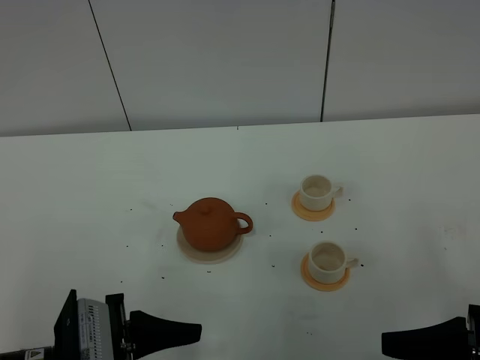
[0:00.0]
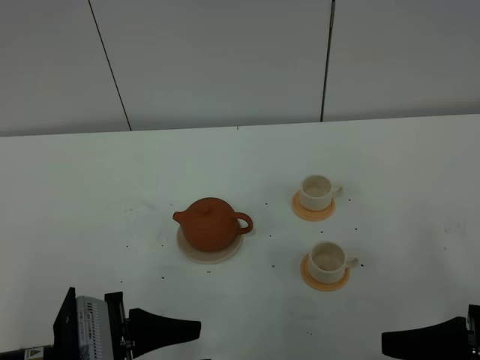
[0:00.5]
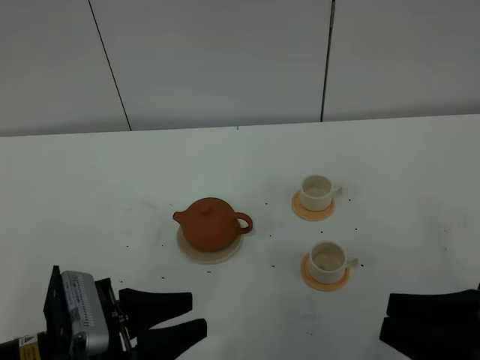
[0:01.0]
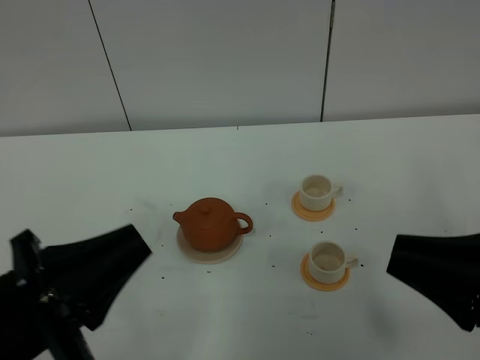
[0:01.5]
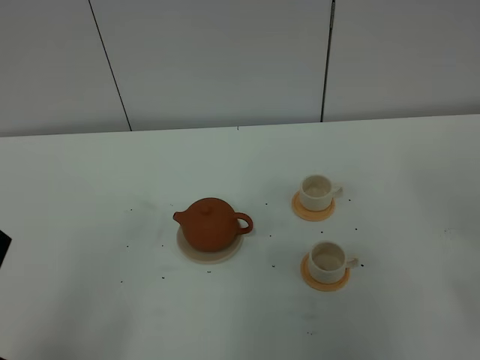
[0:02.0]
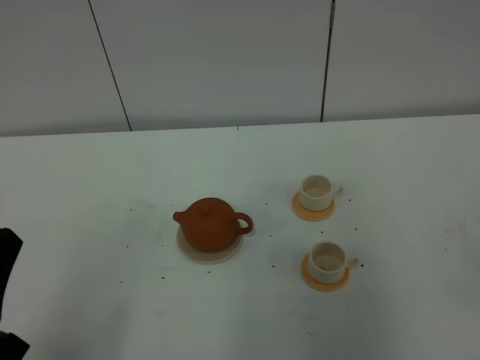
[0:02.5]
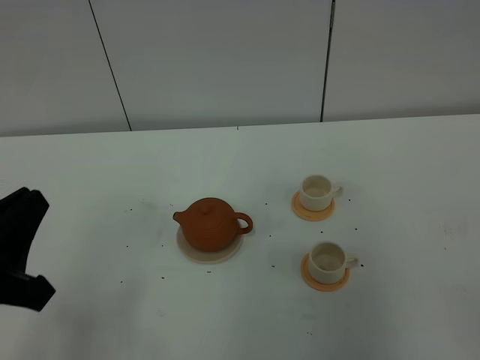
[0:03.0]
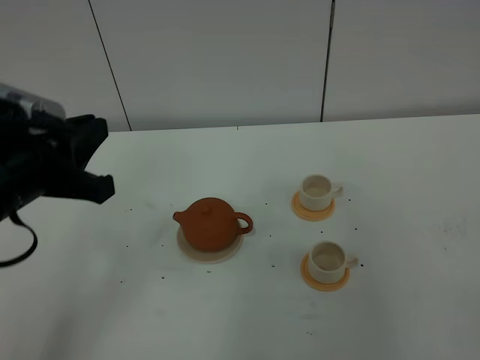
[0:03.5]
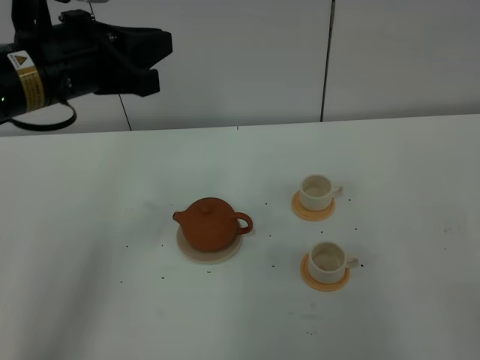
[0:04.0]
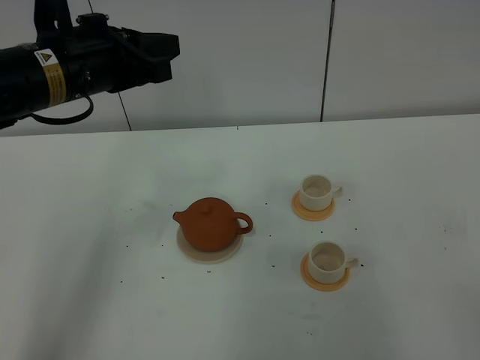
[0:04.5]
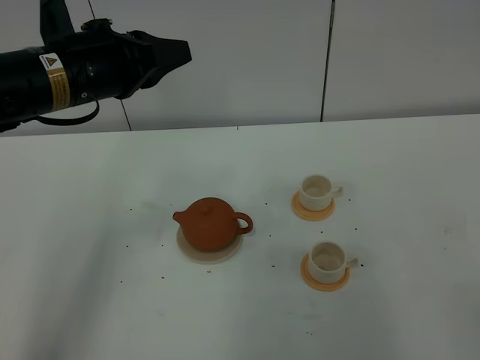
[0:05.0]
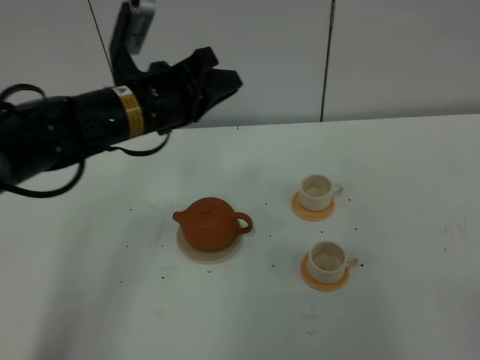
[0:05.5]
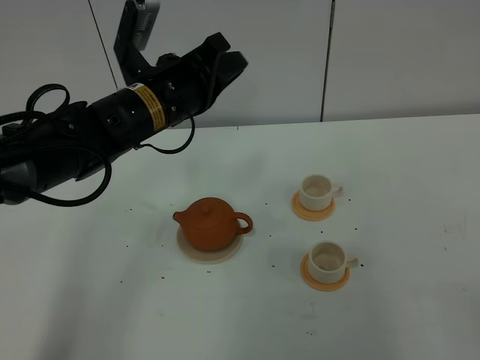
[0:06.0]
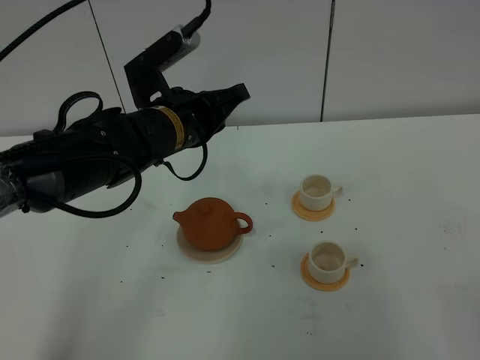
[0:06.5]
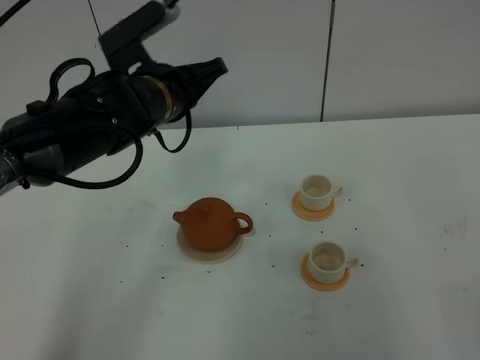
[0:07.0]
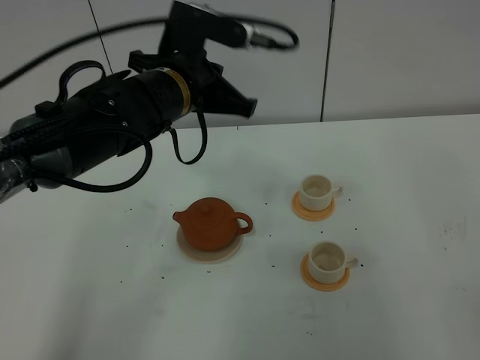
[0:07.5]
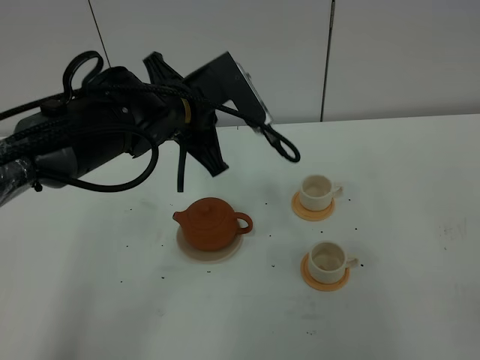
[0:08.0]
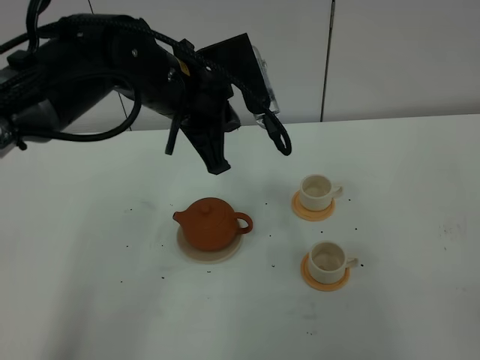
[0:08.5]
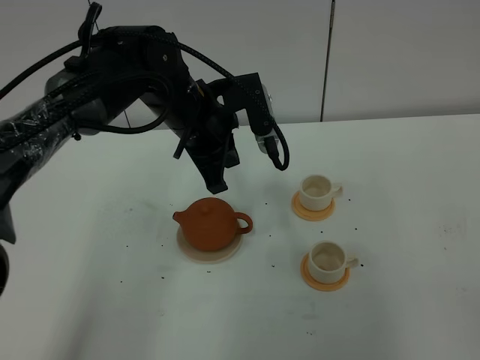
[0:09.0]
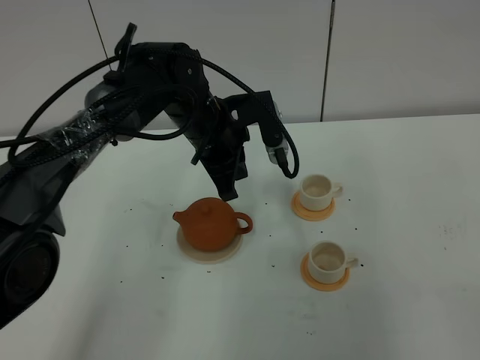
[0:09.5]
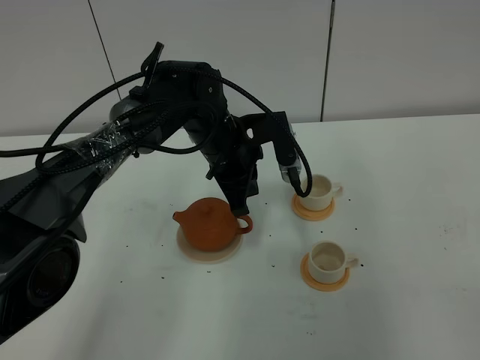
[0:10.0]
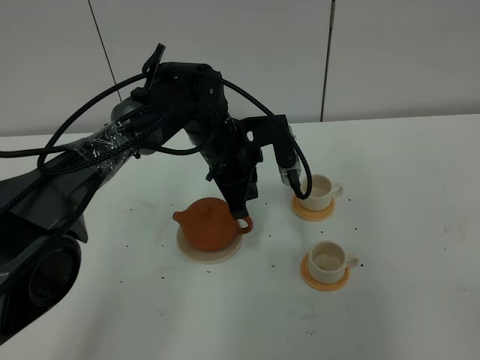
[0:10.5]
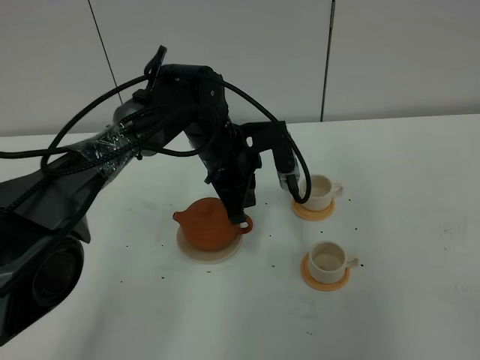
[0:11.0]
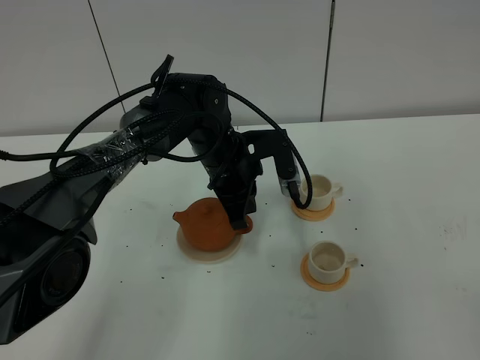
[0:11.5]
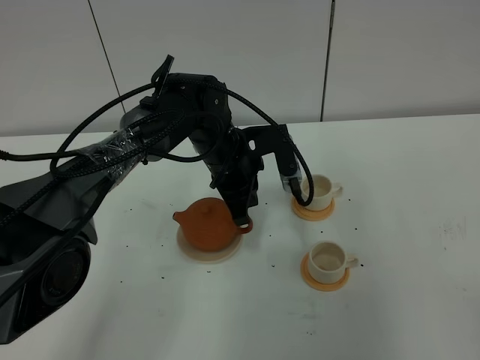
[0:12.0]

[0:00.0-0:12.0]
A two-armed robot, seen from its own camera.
Task of the whole recording: grasp the brown teapot and pour the tea into the two white teacups one by one, put the brown teapot back in its original place.
0:00.0 to 0:02.0: The right gripper travels upward by approximately 15 cm, and closes up; the left gripper moves upward, to the left and backward, about 15 cm, and closes.
0:02.0 to 0:04.0: The left gripper moves forward, roughly 25 cm.
0:04.0 to 0:06.0: The right gripper opens up. Meanwhile the left gripper is displaced downward, to the right and forward by about 10 cm.
0:06.0 to 0:08.0: The left gripper closes its fingers.
0:08.0 to 0:10.0: The left gripper heads downward and forward, covering about 10 cm.
0:10.0 to 0:12.0: The grippers stay close to where they were, moving slightly.

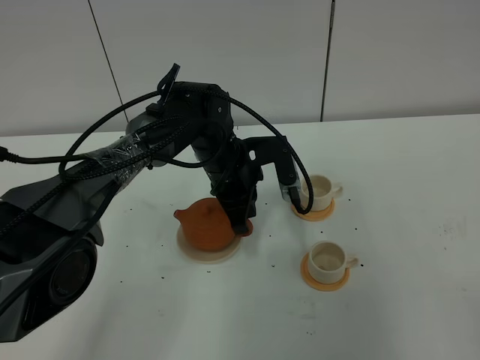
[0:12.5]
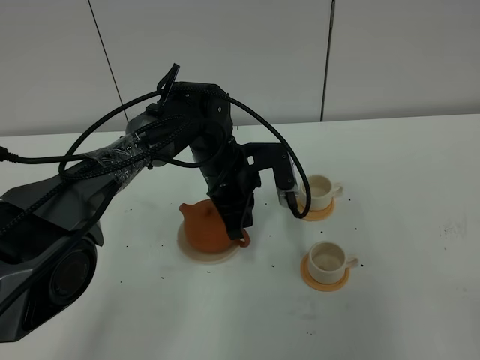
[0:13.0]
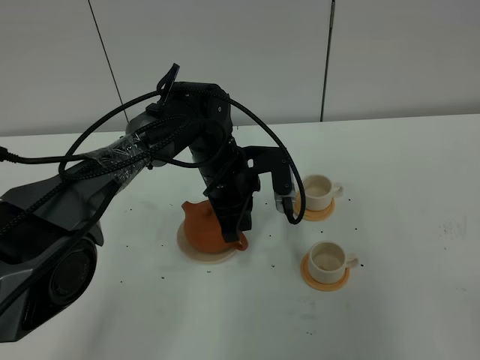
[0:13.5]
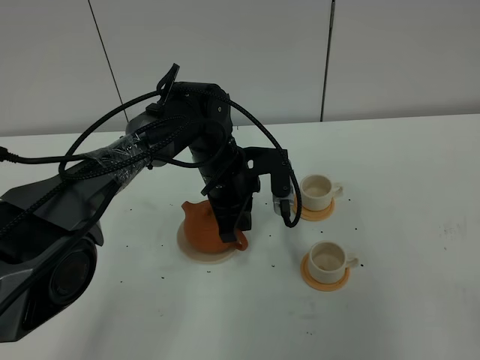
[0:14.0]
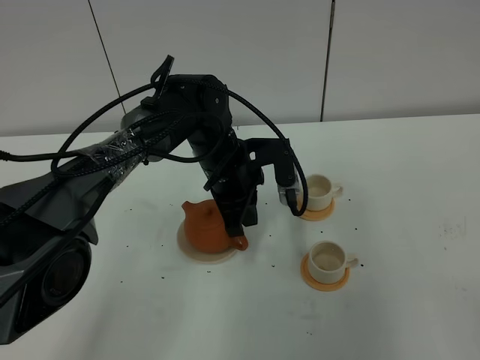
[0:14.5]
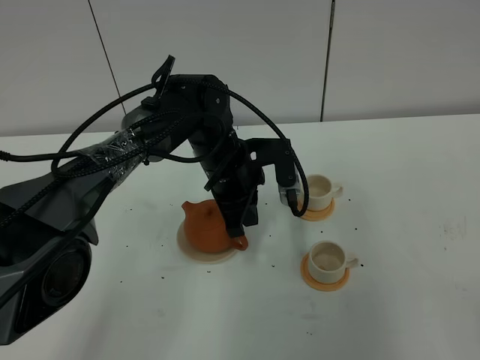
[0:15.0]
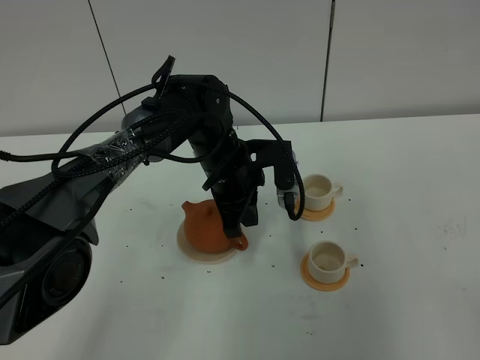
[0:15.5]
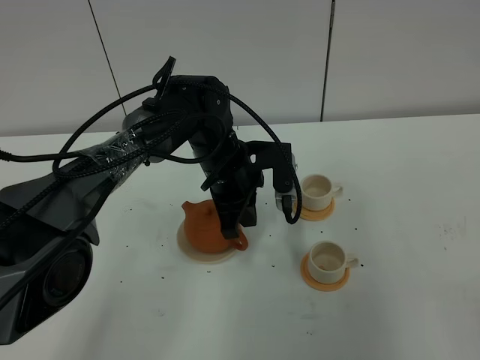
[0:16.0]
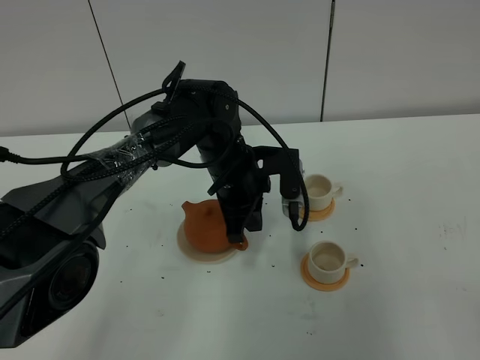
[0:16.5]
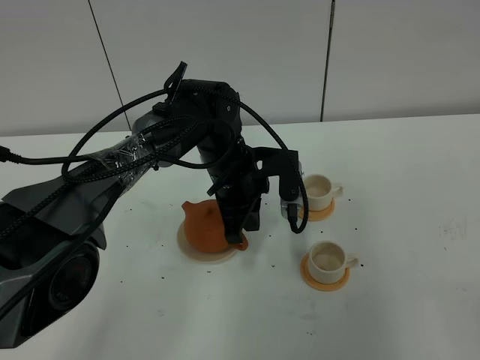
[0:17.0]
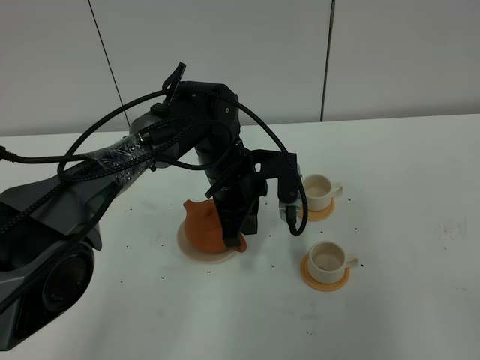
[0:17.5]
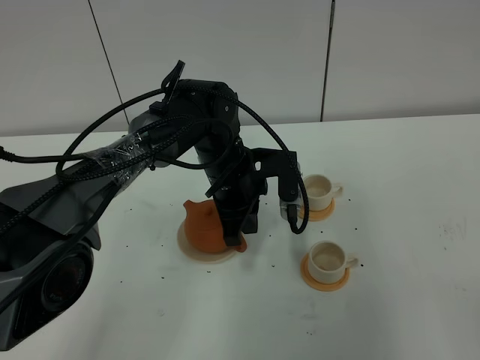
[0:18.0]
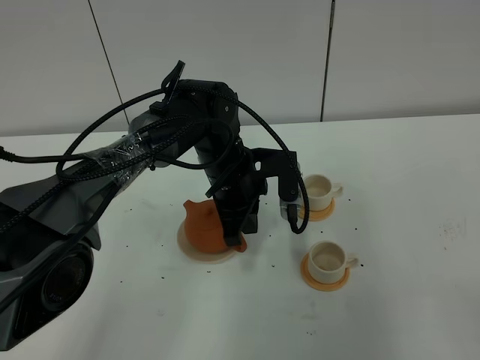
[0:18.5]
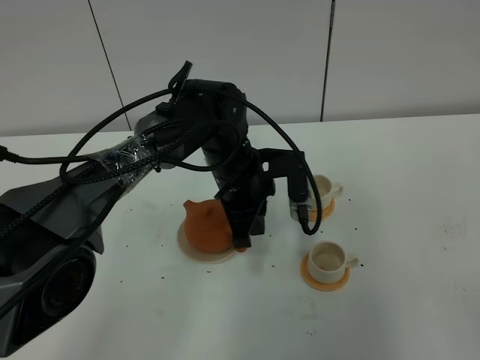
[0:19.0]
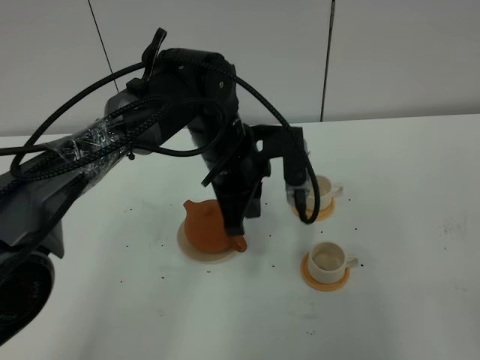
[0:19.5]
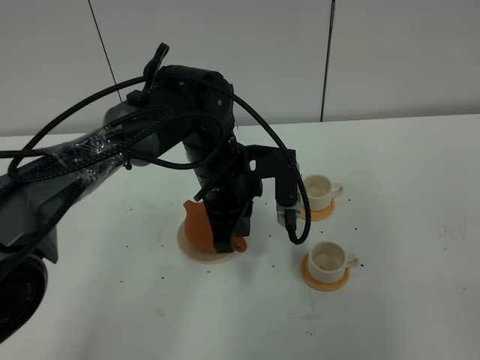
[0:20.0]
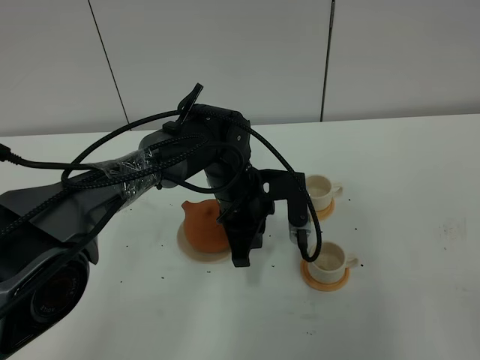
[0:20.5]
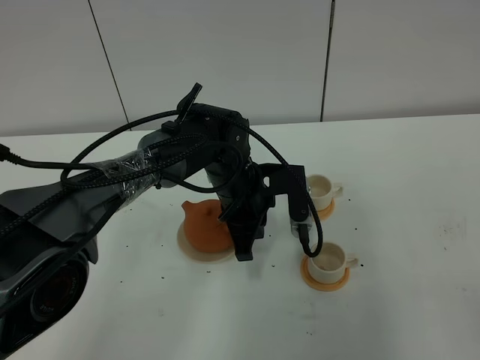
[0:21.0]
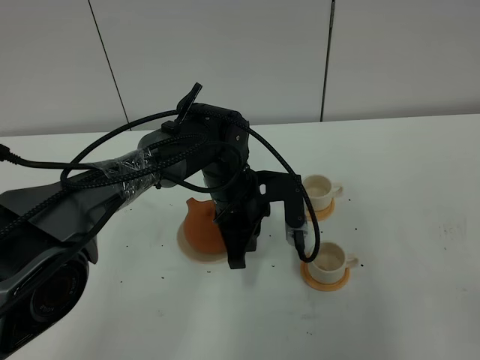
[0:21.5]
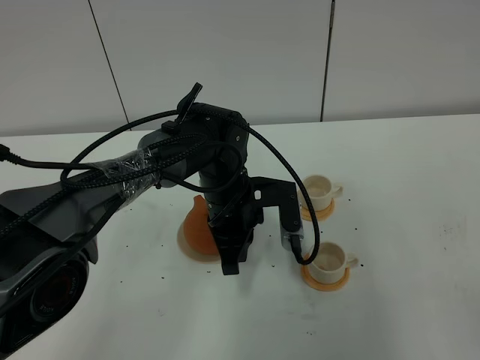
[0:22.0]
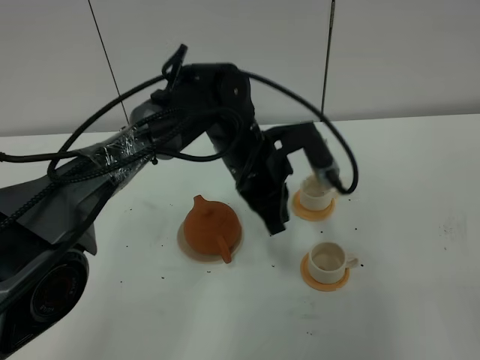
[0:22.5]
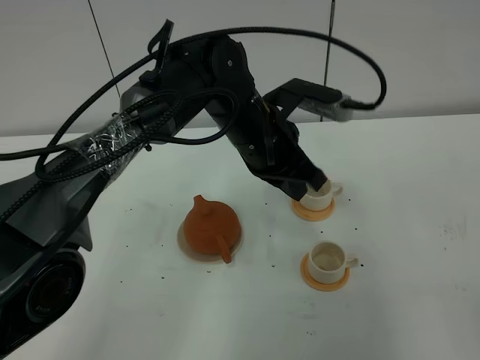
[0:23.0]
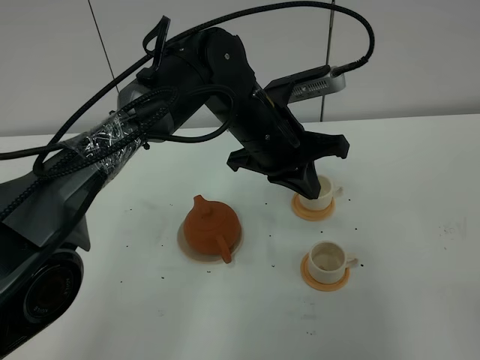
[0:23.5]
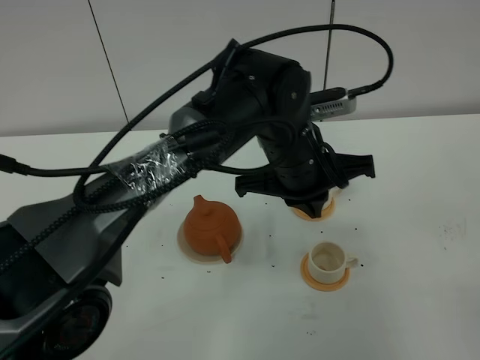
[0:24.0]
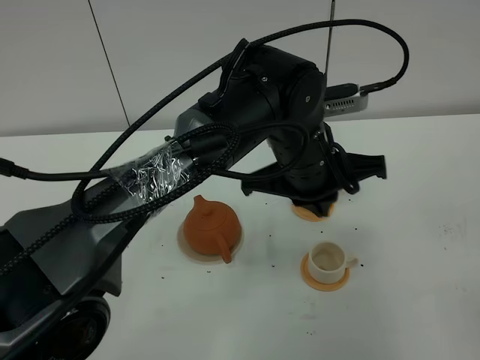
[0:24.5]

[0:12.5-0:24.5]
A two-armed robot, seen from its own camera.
Task of the whole recording: grasp the brown teapot and pour the tea into the two white teacups one by one, put the brown teapot back in its original place.
0:12.5 to 0:16.5: The grippers move only a little.
0:16.5 to 0:18.5: The two grippers keep their place.
0:20.5 to 0:22.5: The left gripper is displaced upward by roughly 5 cm.
0:22.5 to 0:24.5: The left gripper goes some 10 cm to the right and backward.

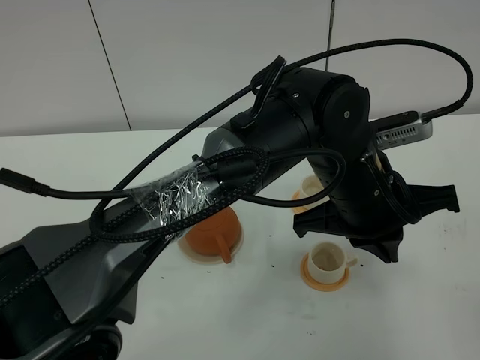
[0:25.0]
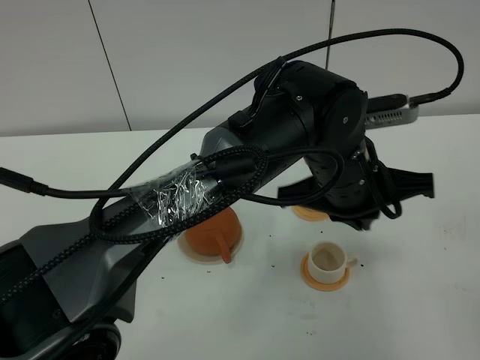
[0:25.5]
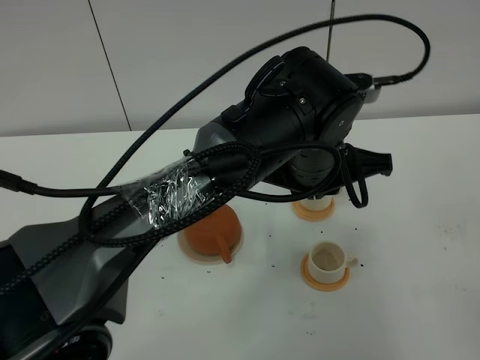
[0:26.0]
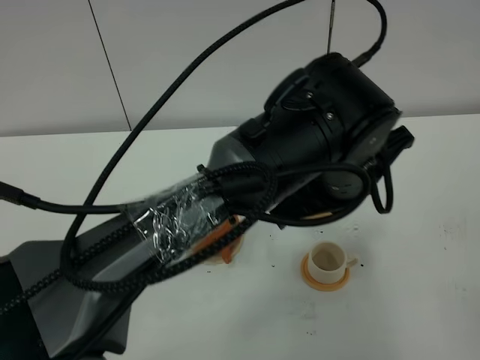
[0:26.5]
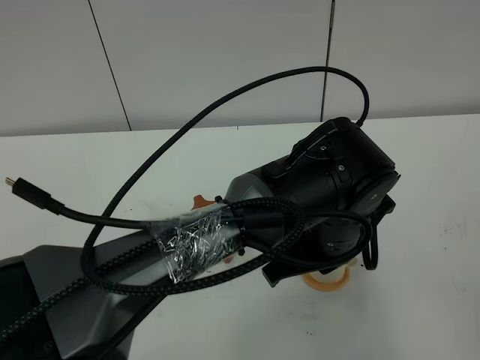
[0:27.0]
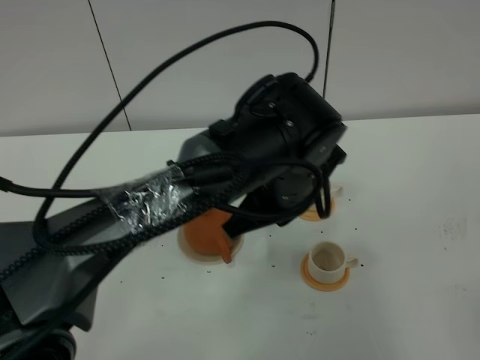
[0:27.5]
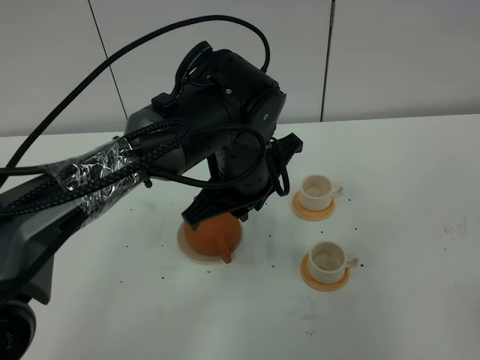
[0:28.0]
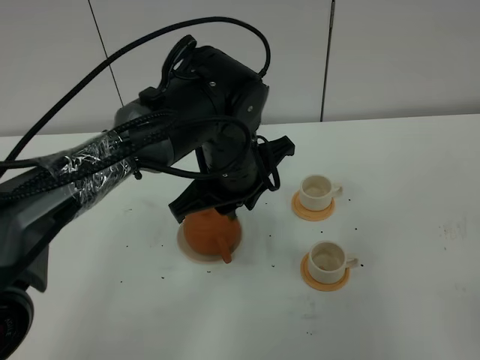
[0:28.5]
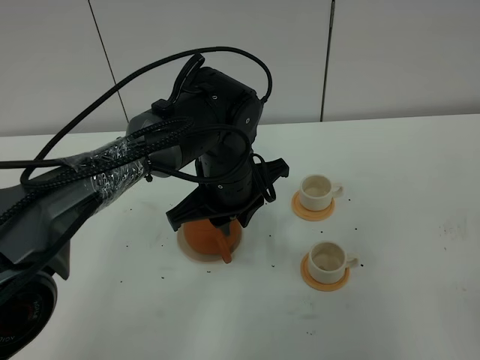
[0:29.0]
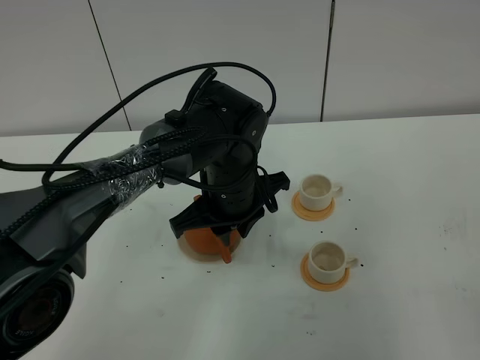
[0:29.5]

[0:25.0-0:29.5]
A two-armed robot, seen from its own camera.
Task of the whole recording: grasp the brown teapot and pour the tea into the two white teacups one by one, put the brown teapot back in its original place.
0:27.0 to 0:29.5: The left gripper goes about 15 cm to the left and forward, and opens.
